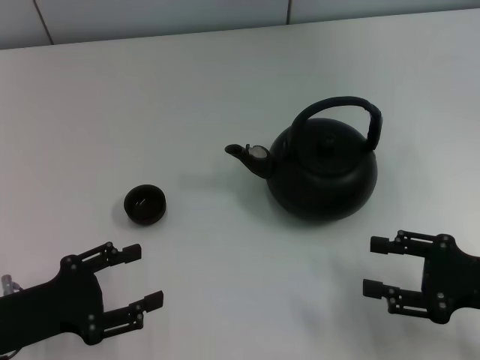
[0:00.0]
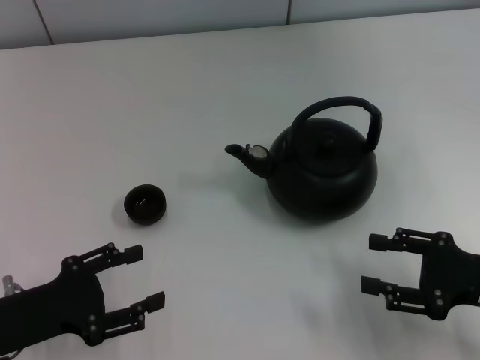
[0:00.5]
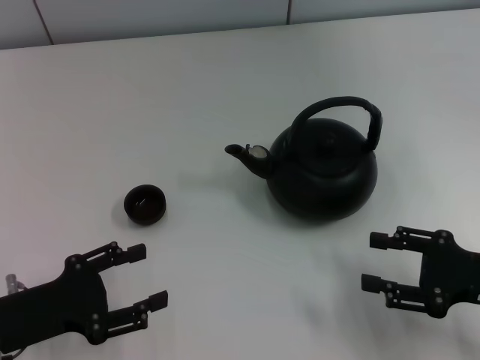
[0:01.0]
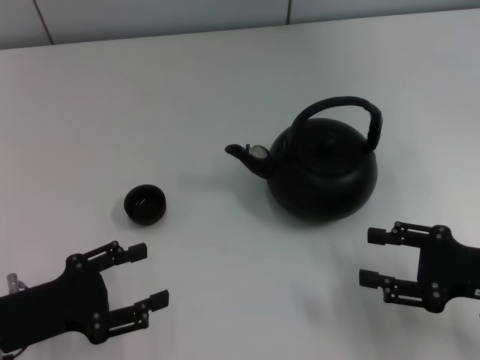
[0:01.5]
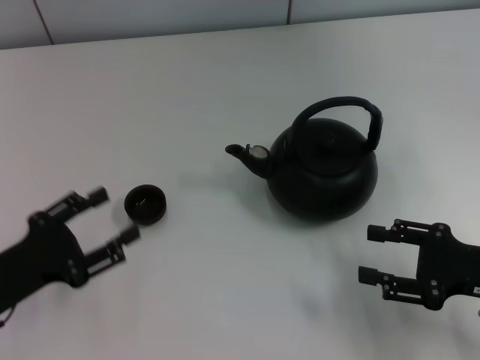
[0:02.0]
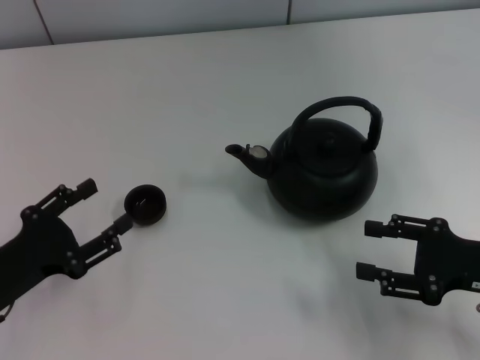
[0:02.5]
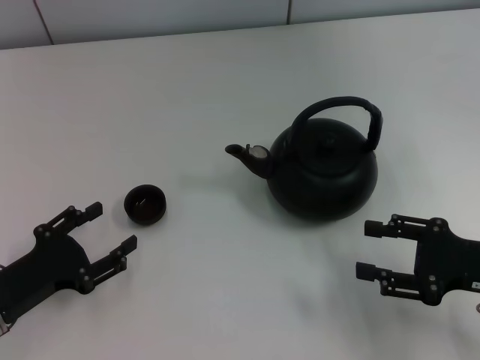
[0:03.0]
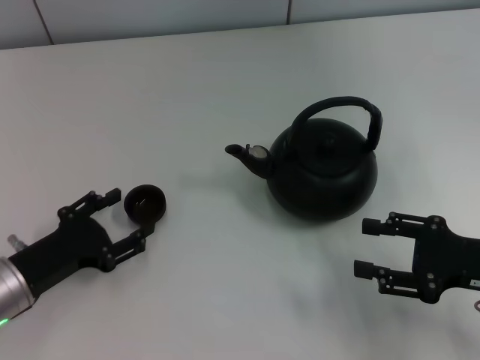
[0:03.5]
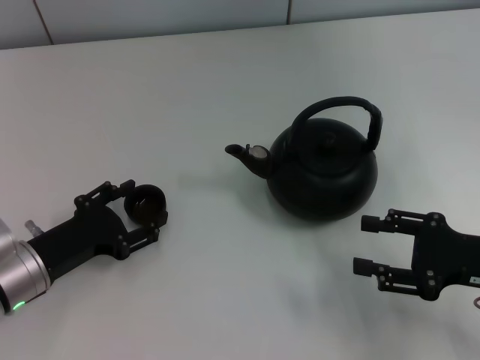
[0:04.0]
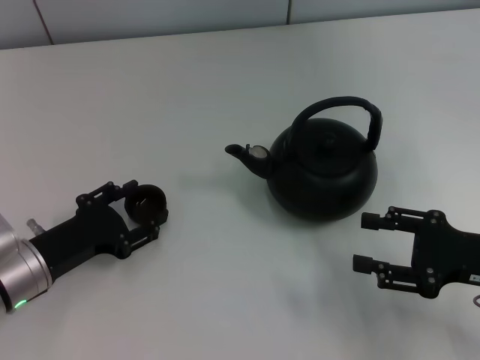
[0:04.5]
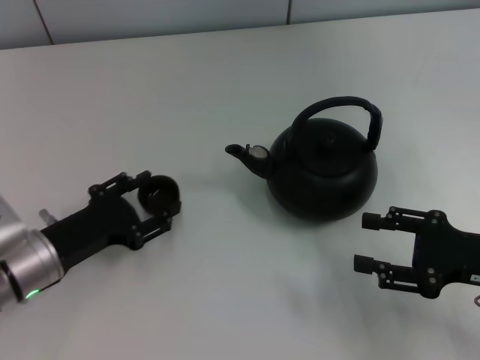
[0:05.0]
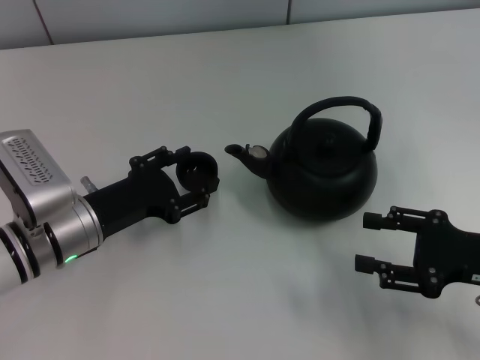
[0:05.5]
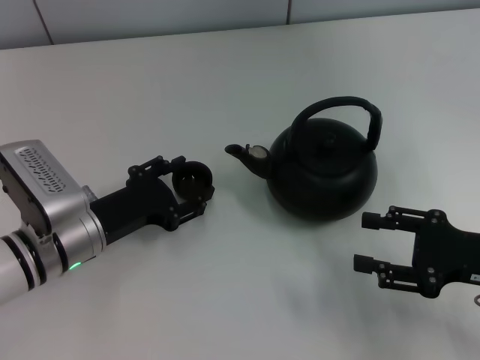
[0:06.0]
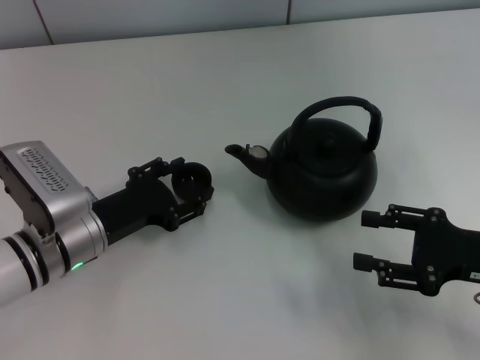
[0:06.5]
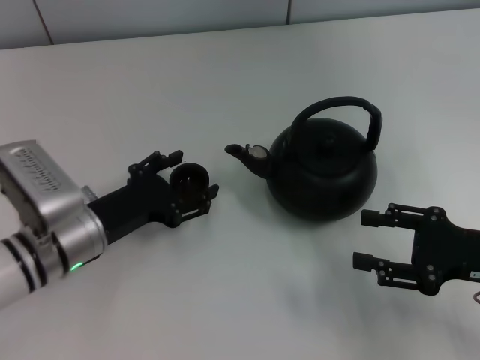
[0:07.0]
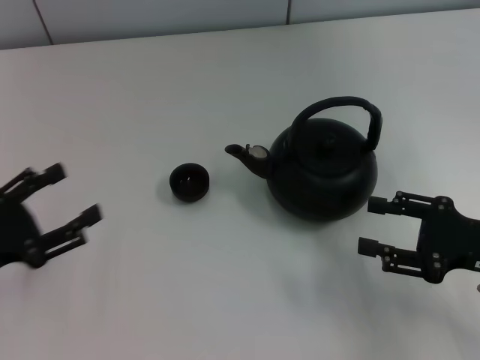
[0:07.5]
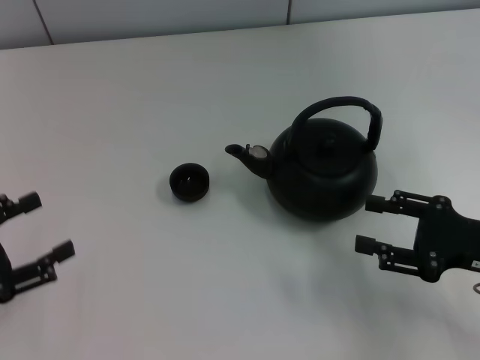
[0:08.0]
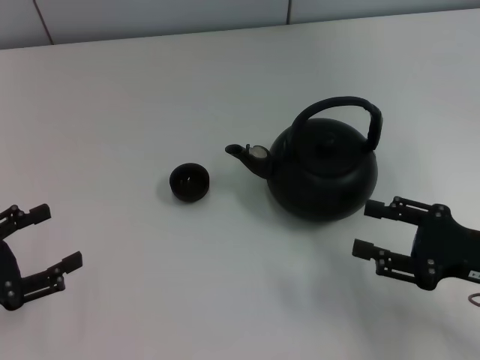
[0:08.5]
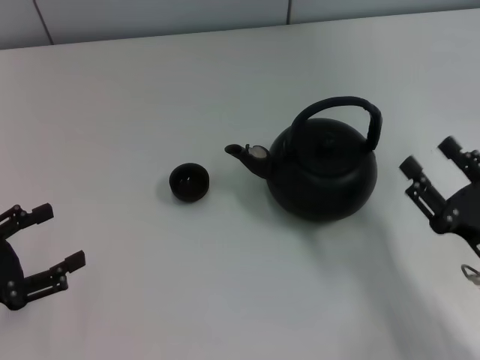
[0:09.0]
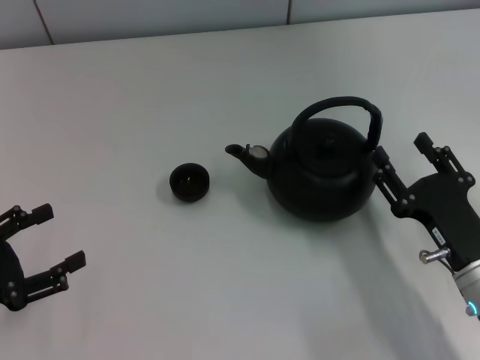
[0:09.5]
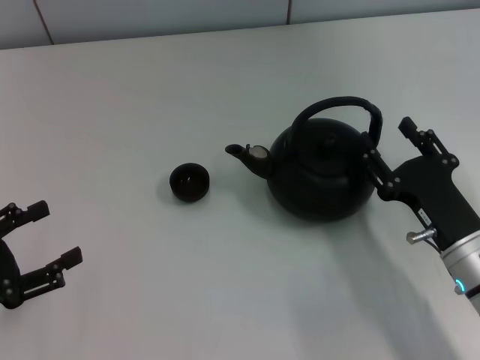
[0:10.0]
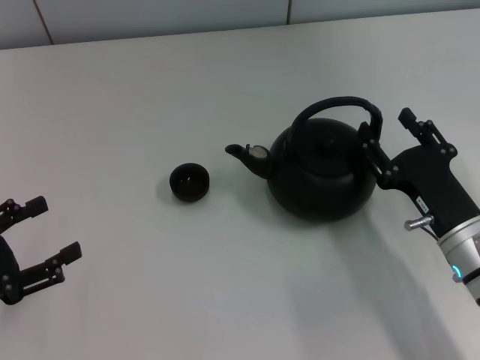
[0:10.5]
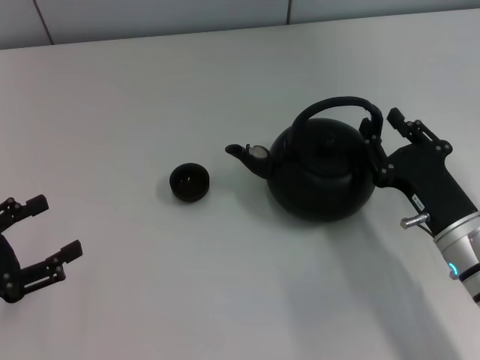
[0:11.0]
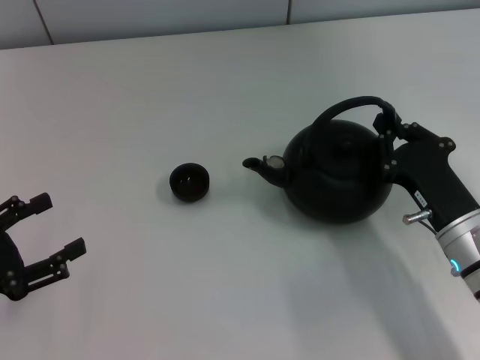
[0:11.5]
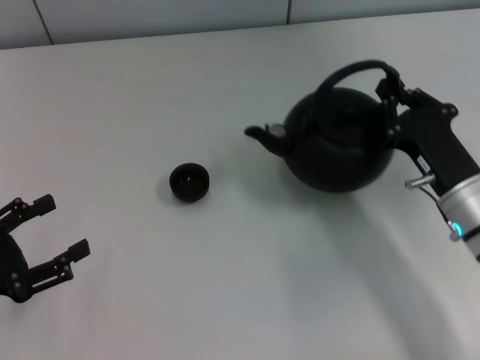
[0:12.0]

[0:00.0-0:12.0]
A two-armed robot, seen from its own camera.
Task of the whole recording: Grasp the handle of the teapot with one hand and pour tea into the teacup.
Step, 0:00.0 to 0:04.5: Pick up the teacup with the left gripper.
Step, 0:05.5 to 0:07.0: Place the teacup in the center of view with the left gripper.
Step, 0:07.5 to 0:11.5: Pick up the teapot with the right gripper.
0:00.0 to 0:02.0: The grippers make only small movements.
0:02.0 to 0:04.0: The left gripper moves roughly 5 cm.
0:04.0 to 0:06.0: The left gripper moves to the right, some 5 cm, and closes its fingers.
0:06.0 to 0:08.0: The left gripper moves to the left and backward, about 20 cm, and opens up.
0:08.0 to 0:10.0: The right gripper shifts about 10 cm to the left.
0:10.0 to 0:12.0: The right gripper ends up some 5 cm from where it was, and closes up.

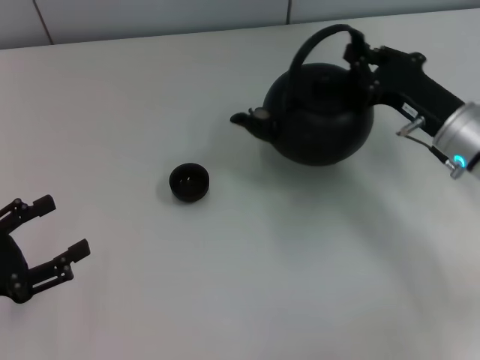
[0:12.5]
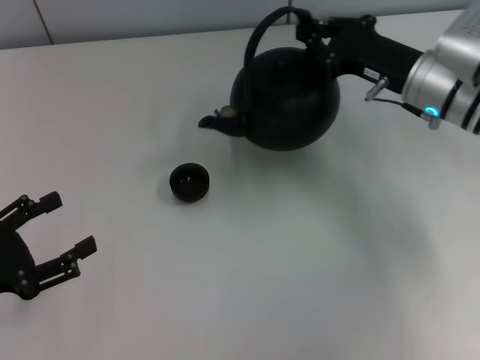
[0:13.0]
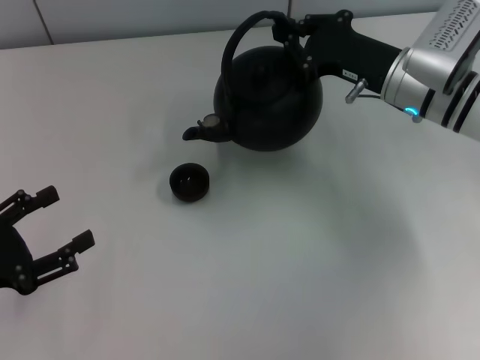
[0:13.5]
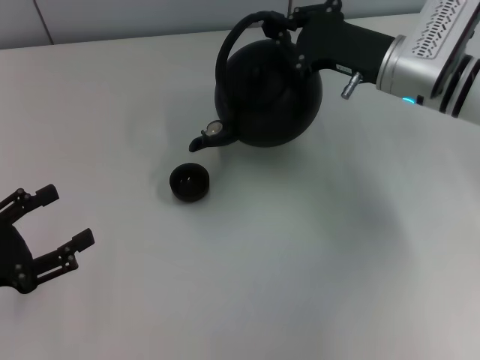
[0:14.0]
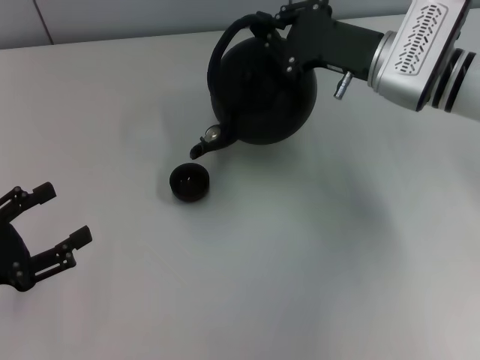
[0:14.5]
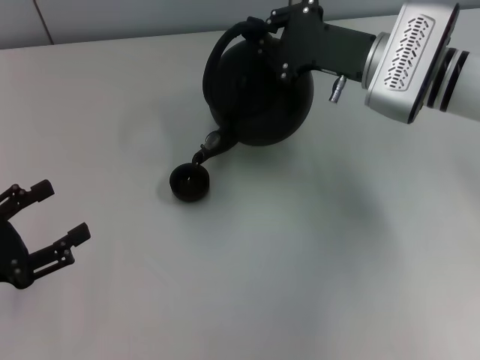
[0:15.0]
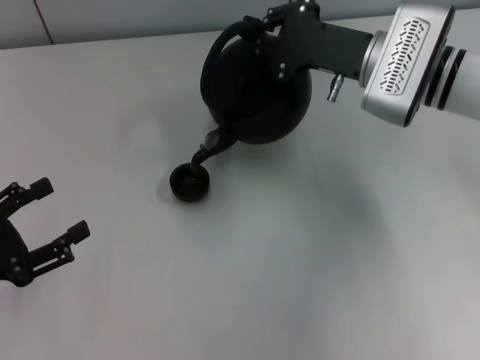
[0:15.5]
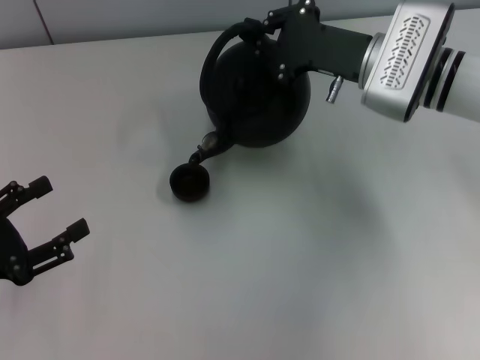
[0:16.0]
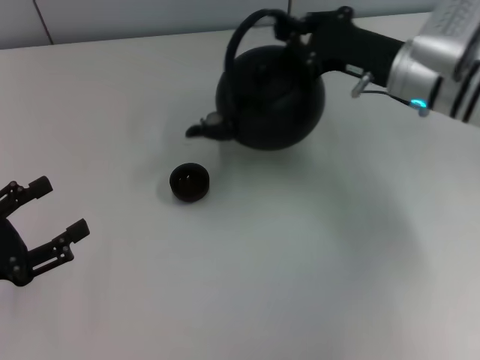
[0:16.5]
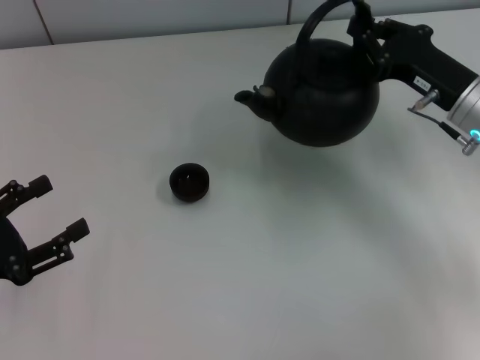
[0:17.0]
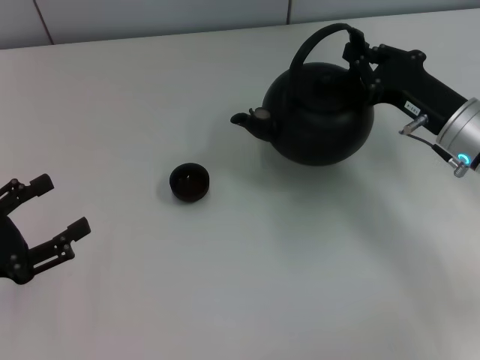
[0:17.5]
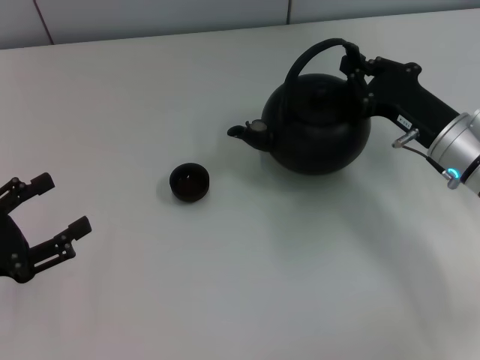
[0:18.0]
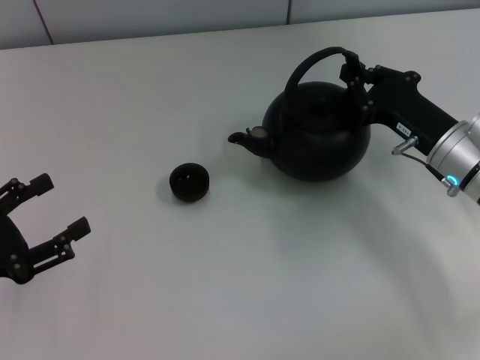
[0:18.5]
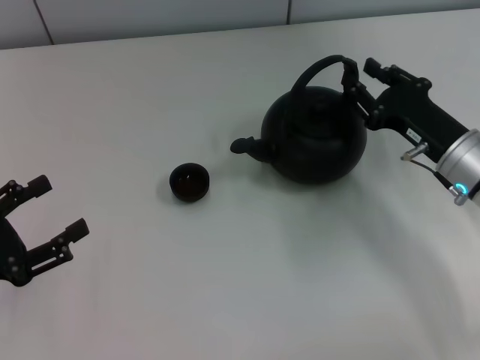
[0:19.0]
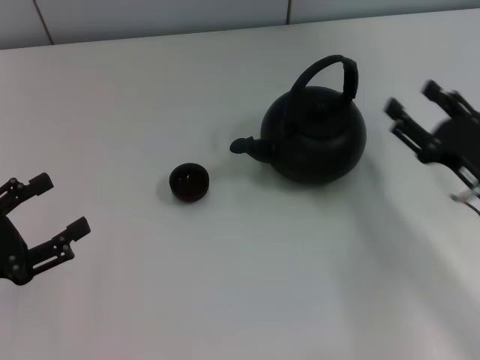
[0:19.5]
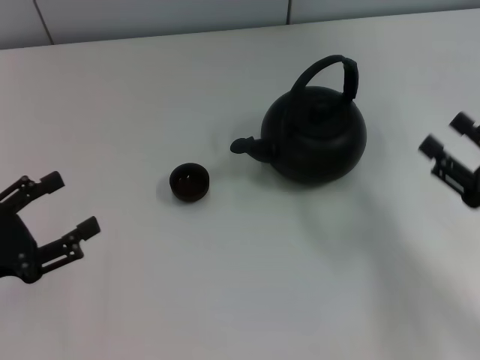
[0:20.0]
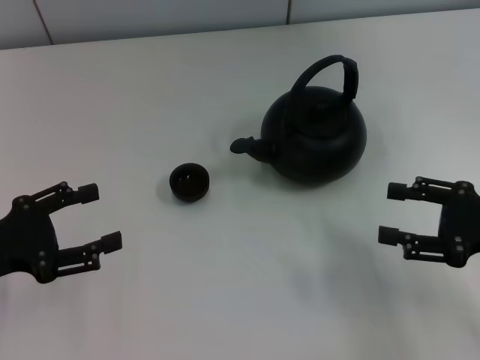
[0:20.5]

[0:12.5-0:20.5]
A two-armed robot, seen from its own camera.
Task of the whole recording: Grasp the handle of the teapot with one hand and pour tea into the teacup.
Step, 0:17.0 to 0:19.0: Put down the teapot with the right gripper.
0:12.5 to 0:14.5: The right gripper heads forward, to the left and upward, covering roughly 10 cm.
0:16.5 to 0:18.5: The right gripper heads backward and downward, covering some 10 cm.
0:18.5 to 0:20.5: The right gripper heads backward and to the right, covering about 10 cm, and opens.
